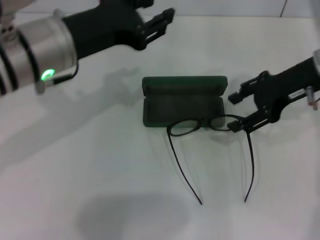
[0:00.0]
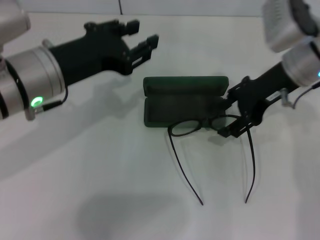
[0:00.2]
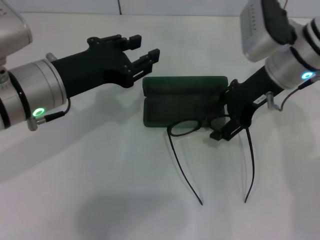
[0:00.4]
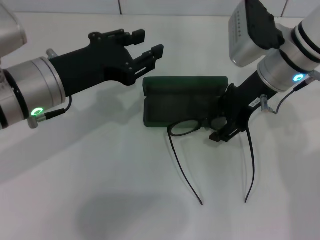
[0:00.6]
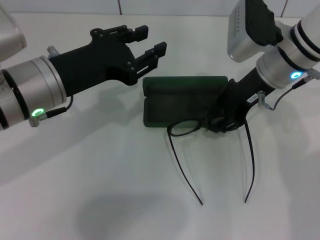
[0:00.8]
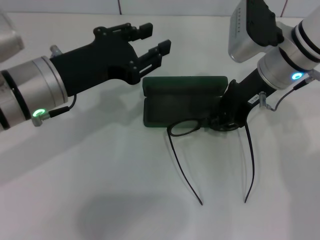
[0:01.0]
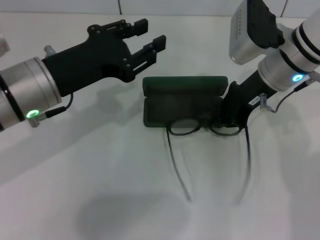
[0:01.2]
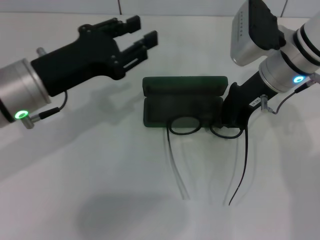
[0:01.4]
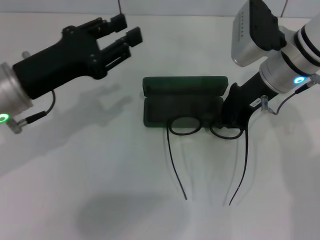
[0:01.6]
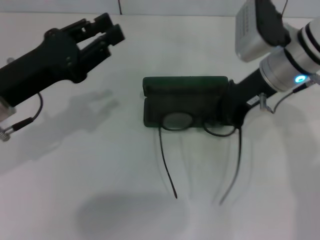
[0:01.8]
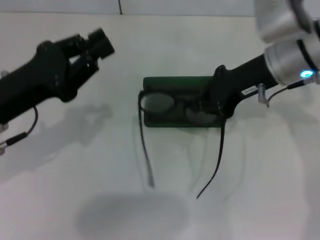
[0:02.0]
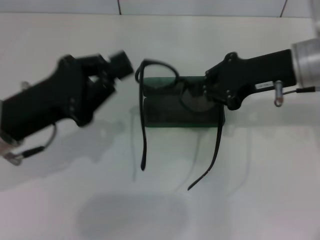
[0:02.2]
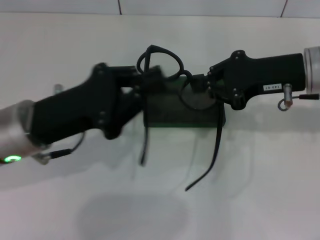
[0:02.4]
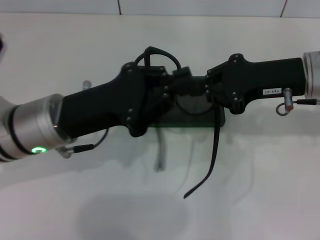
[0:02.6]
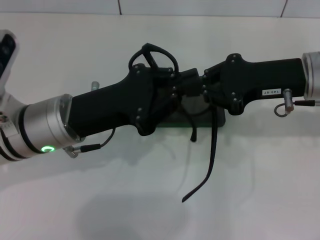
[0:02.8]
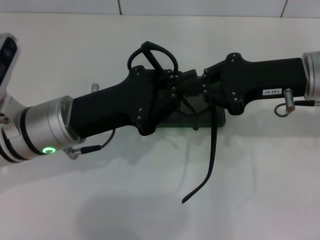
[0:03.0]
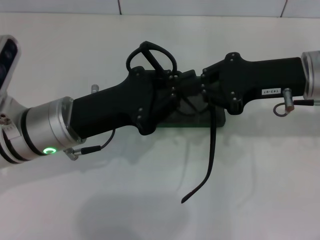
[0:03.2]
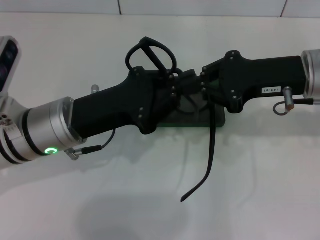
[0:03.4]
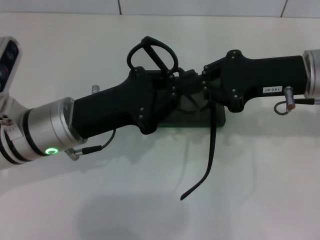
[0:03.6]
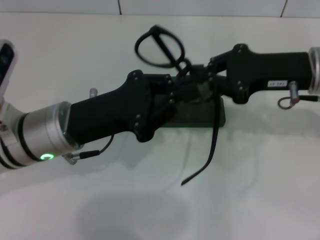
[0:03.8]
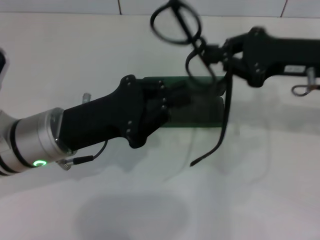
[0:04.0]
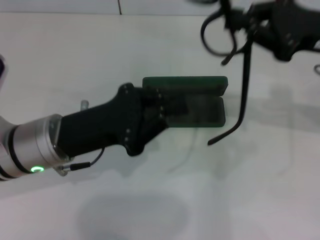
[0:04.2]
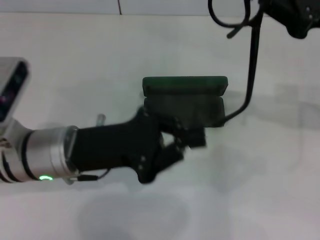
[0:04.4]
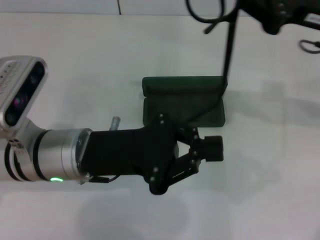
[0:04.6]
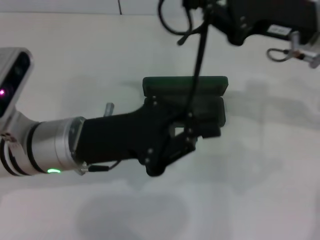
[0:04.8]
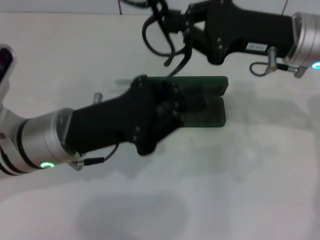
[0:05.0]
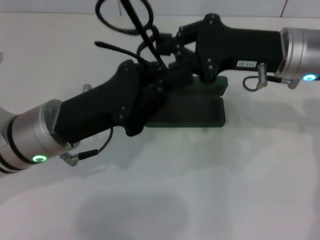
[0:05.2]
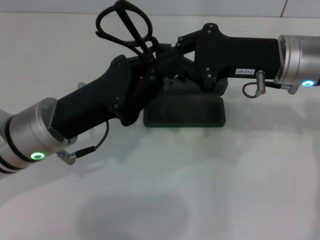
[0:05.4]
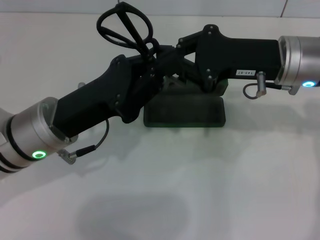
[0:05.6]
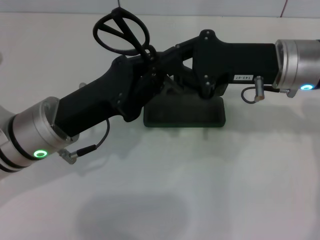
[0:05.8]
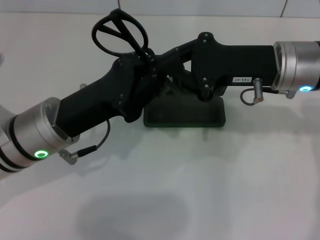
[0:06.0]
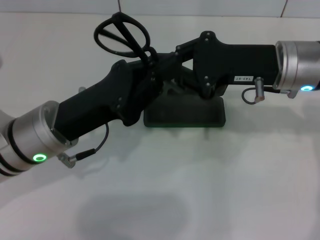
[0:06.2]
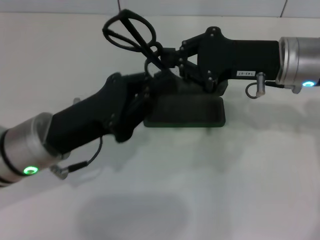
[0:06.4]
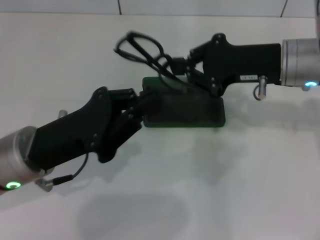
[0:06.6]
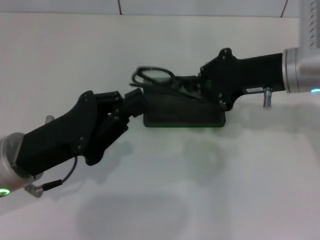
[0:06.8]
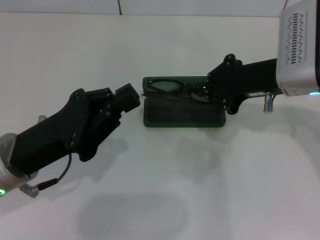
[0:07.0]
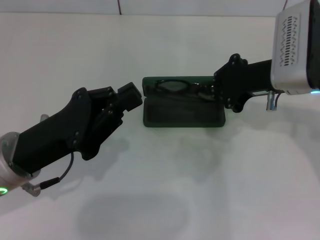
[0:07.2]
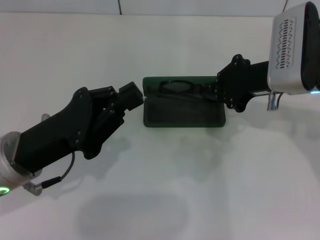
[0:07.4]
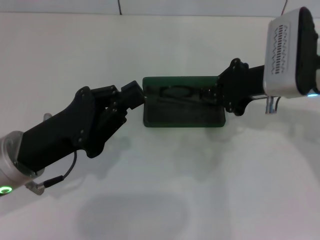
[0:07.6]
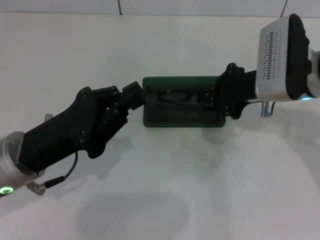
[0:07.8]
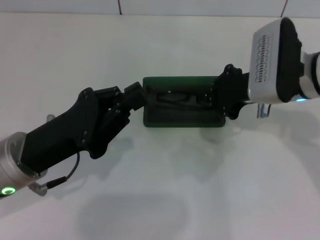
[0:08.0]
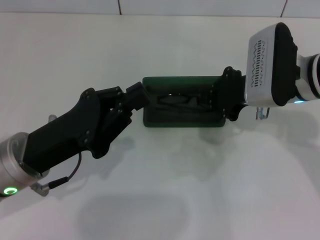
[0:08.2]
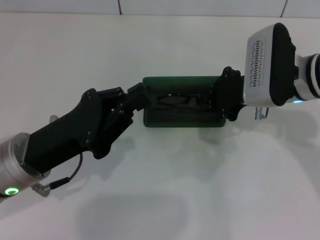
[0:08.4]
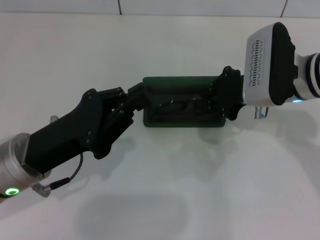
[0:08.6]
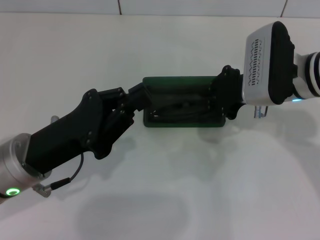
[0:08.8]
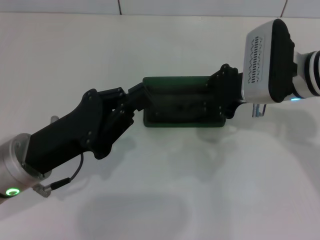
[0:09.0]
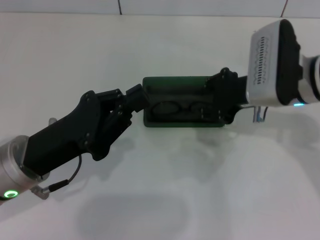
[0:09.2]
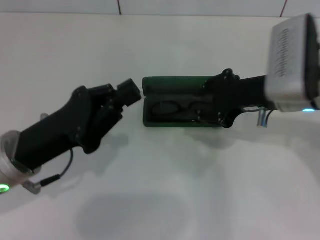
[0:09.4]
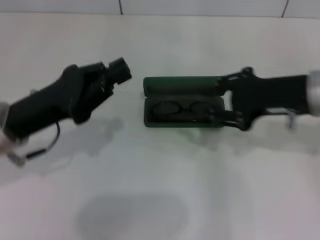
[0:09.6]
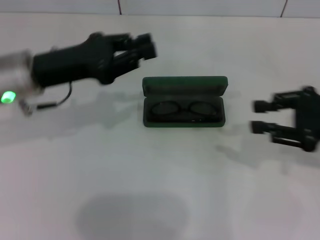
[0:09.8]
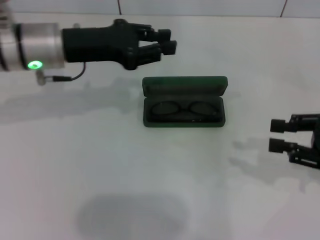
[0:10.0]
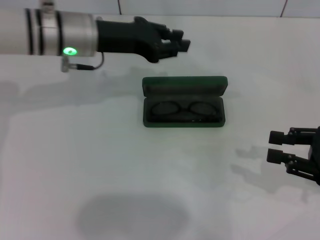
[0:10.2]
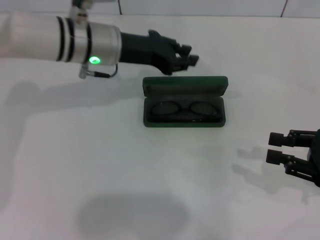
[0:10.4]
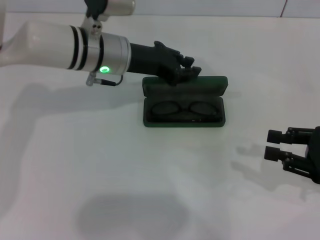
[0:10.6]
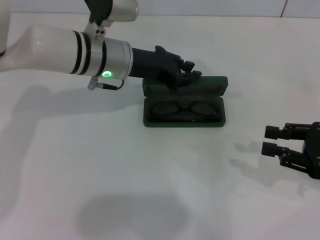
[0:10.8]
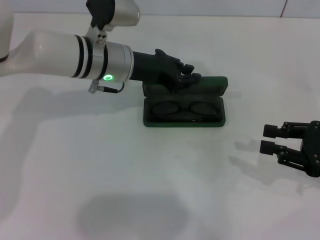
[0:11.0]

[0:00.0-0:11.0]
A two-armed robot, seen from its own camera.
Step, 0:00.0 to 0:01.4: Grab the eyeglass frame with your right hand.
Step, 0:01.6 to 0:06.2: Fold the frame with your left hand.
Step, 0:06.4 to 0:09.2: Put the glasses into the case with your right hand.
0:00.0 to 0:01.6: The right gripper shifts approximately 5 cm to the left, and closes. Meanwhile the left gripper heads to the left and downward, covering about 10 cm.
0:01.6 to 0:03.2: The left gripper is displaced to the right by roughly 5 cm, and closes. Meanwhile the right gripper moves backward, roughly 5 cm.
0:06.2 to 0:07.8: The left gripper moves about 5 cm.
0:07.8 to 0:09.4: The right gripper opens its fingers.
0:09.4 to 0:11.0: The left gripper shifts roughly 20 cm forward and to the right. The right gripper is displaced to the right, backward and downward by some 20 cm.

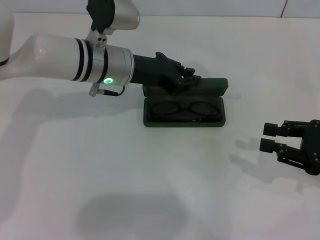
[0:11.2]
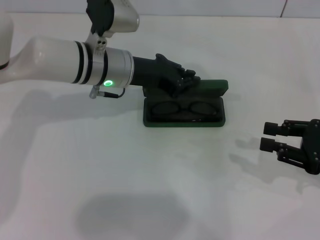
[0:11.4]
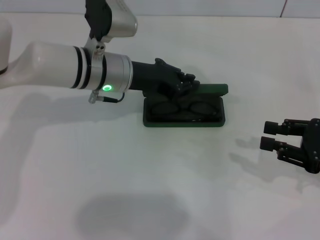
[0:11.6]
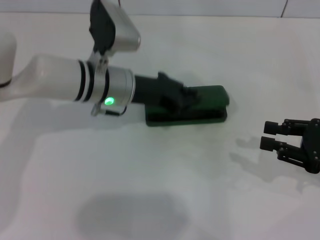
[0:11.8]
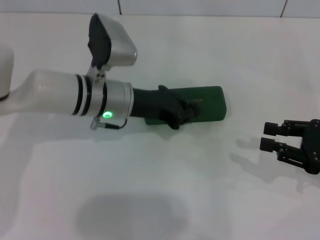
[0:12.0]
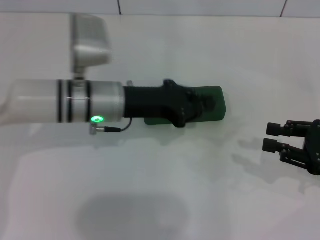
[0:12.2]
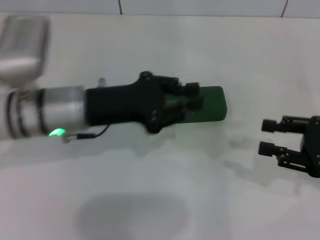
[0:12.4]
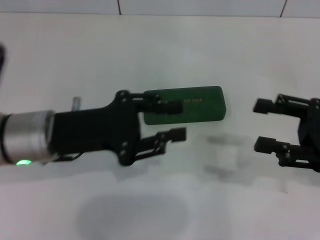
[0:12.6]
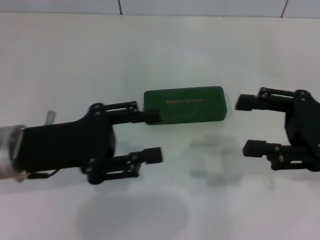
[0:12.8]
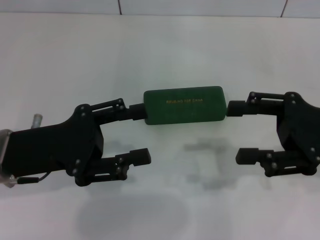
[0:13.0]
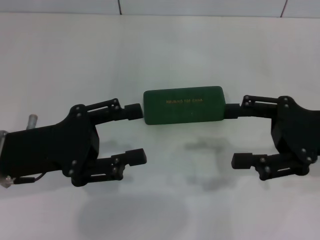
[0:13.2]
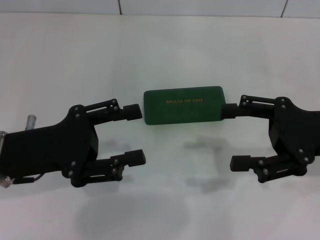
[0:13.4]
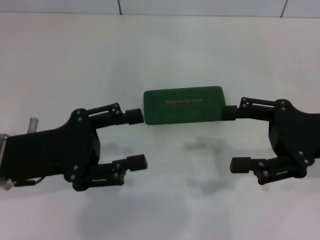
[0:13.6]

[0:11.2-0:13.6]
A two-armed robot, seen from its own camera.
0:11.2 to 0:12.4: The left gripper is displaced backward by about 10 cm.
0:12.4 to 0:13.6: The left gripper heads to the left and backward, covering roughly 10 cm, and opens up. Meanwhile the right gripper heads to the left, covering about 5 cm, and opens up.
